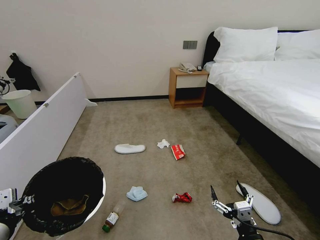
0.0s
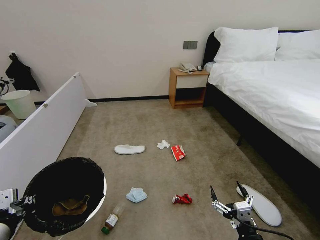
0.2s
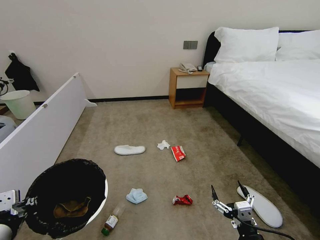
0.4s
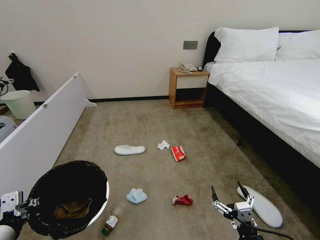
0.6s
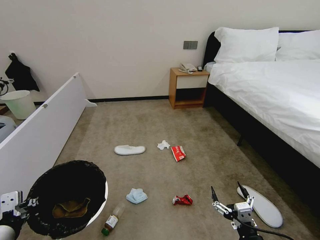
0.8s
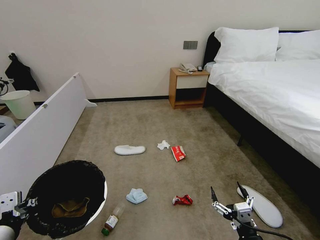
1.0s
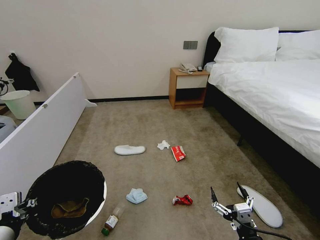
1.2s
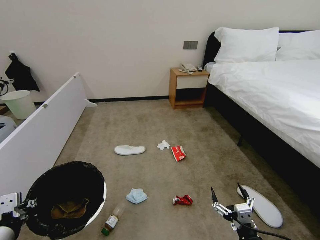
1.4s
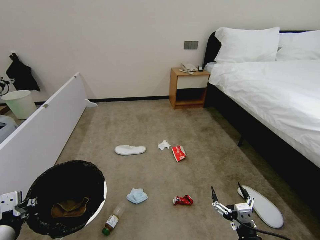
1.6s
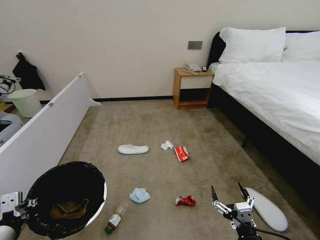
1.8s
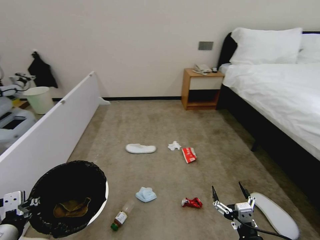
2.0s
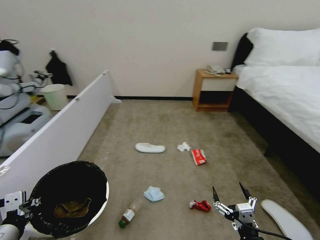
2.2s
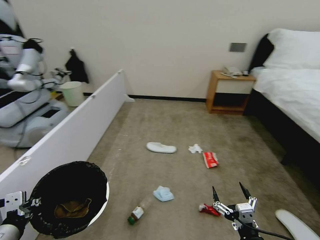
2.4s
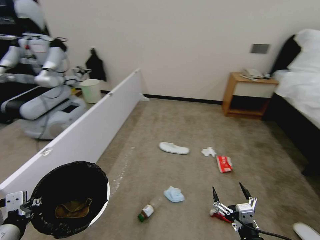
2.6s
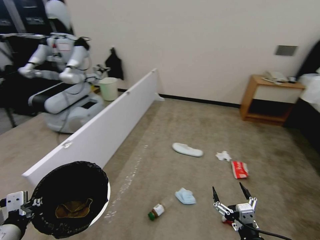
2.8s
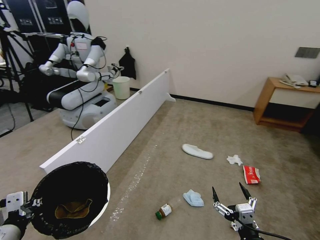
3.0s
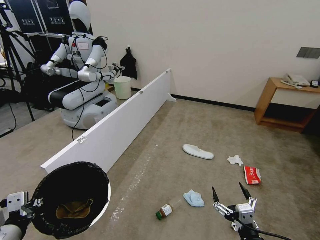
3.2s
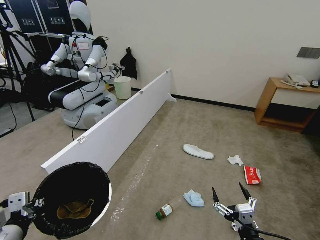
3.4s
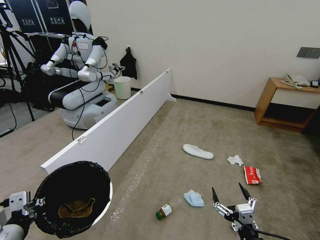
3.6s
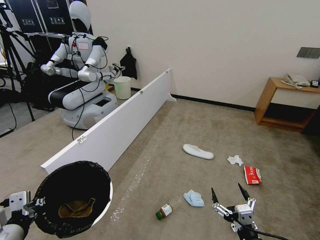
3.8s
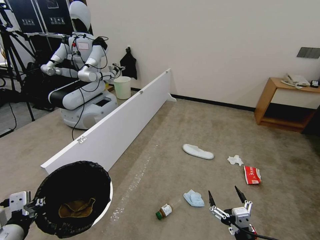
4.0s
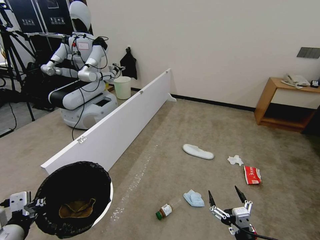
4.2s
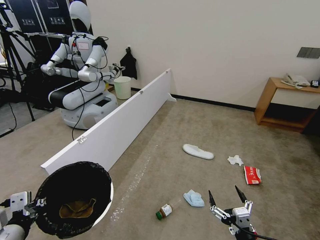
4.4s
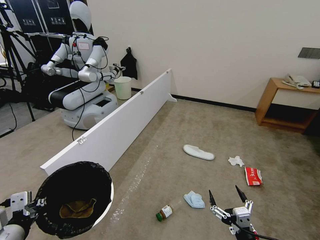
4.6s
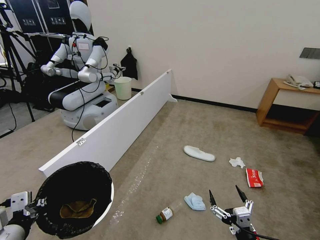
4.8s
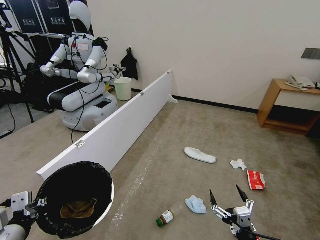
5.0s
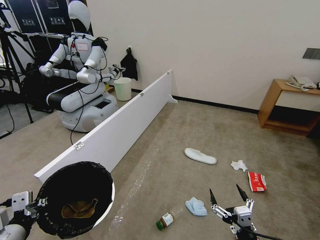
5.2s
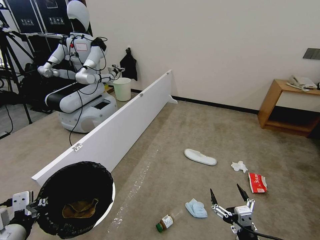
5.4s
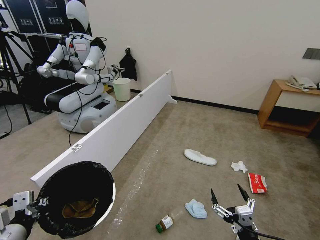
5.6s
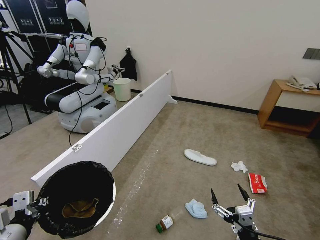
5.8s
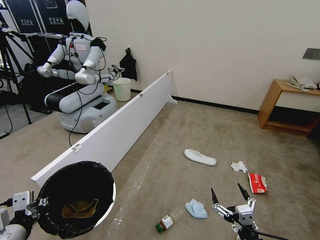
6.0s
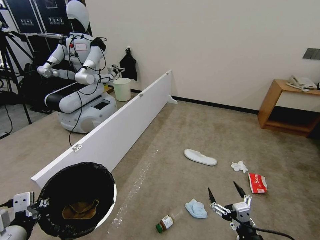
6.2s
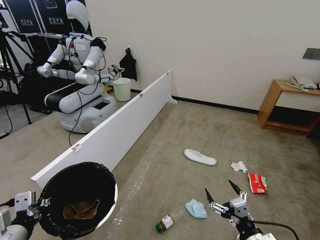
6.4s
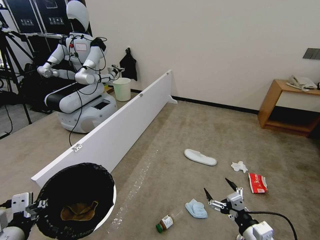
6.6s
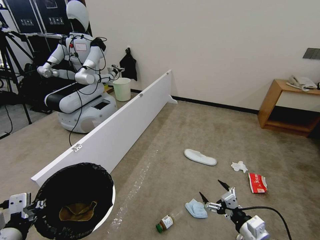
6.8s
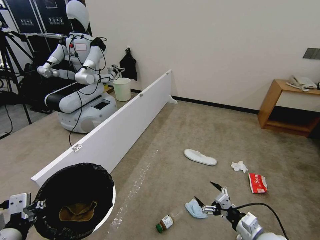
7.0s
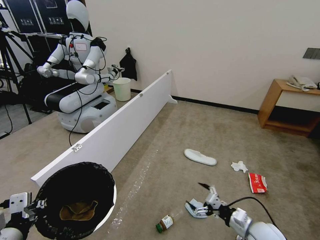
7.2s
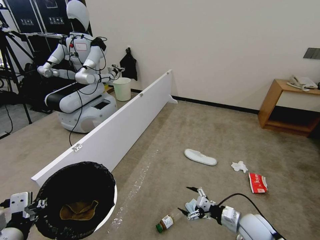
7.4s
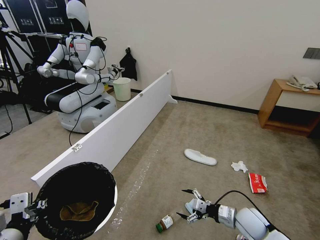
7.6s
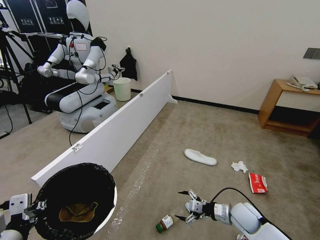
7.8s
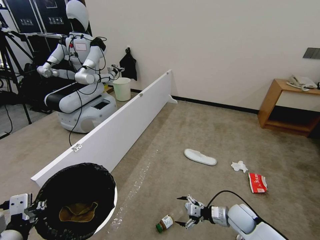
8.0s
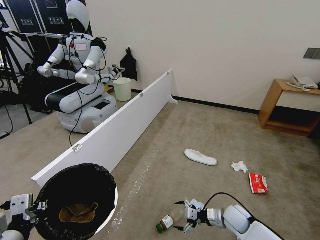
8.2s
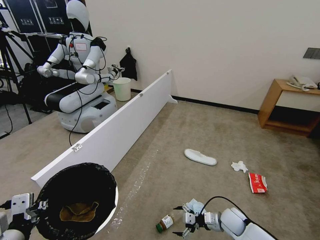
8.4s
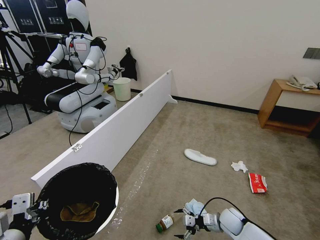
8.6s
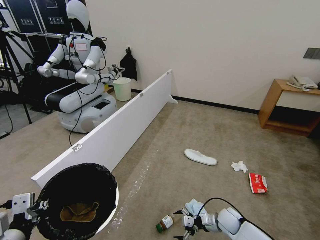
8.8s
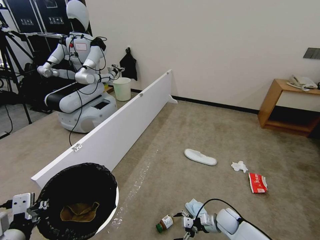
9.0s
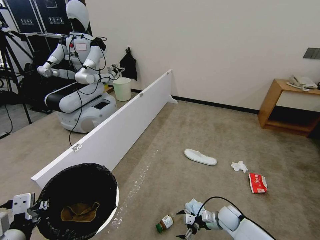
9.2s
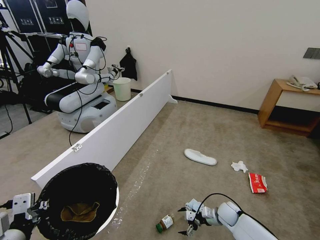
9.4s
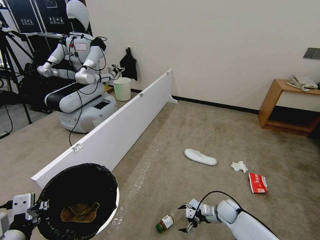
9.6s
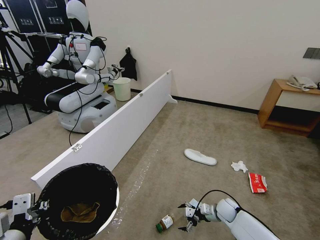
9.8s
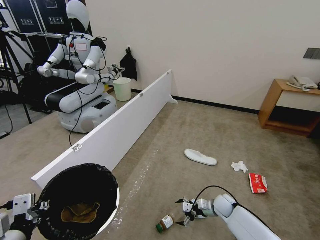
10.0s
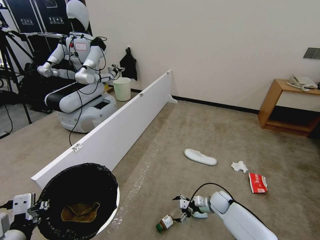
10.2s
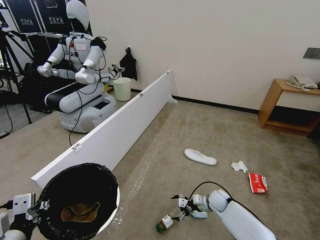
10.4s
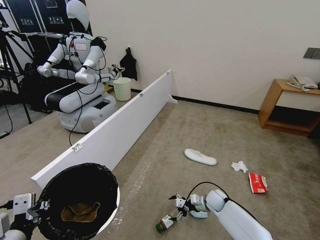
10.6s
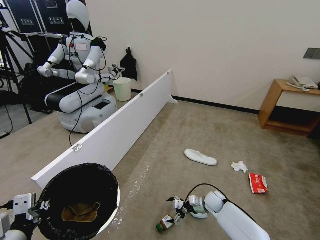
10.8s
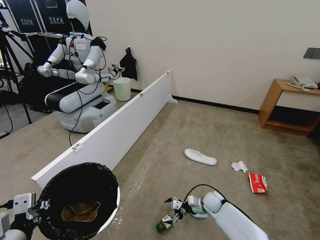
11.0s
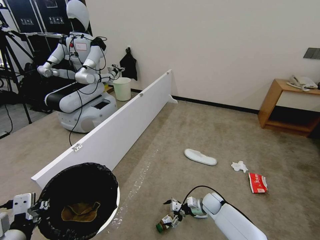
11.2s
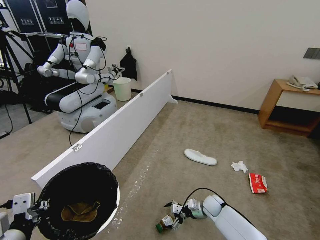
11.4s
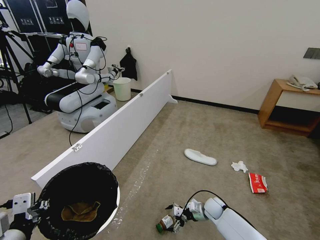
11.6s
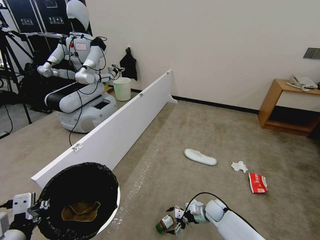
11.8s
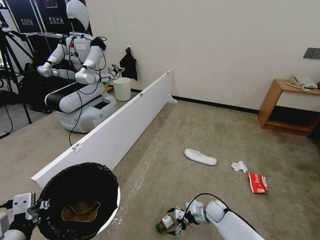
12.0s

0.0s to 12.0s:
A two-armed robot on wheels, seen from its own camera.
Task of the whole recording: Pick up the trash bin, then pick up the garbage from the floor and place it into the trash bin.
0.0s to 1.6s: There are only small adjustments of the grippers.
3.0s to 6.0s: Both grippers stay put.
6.0s to 7.6s: The right gripper shifts about 20 cm forward.
7.6s to 9.0s: The right gripper goes roughly 10 cm downward.
9.0s to 10.4s: The right gripper moves forward, approximately 10 cm.
10.4s to 12.0s: The right gripper shifts by approximately 5 cm.

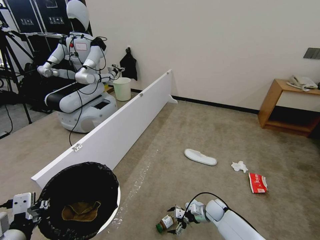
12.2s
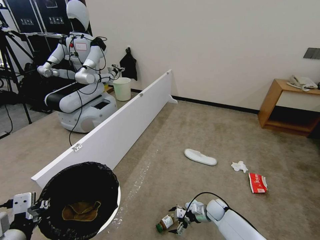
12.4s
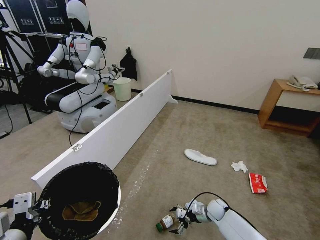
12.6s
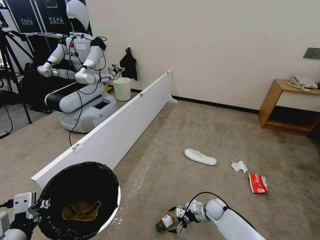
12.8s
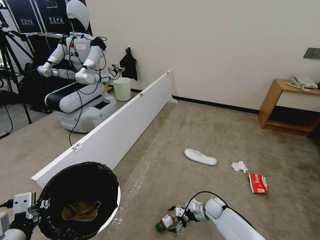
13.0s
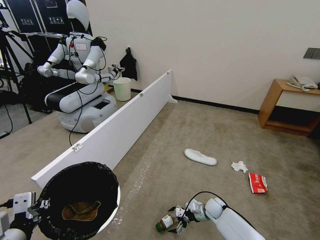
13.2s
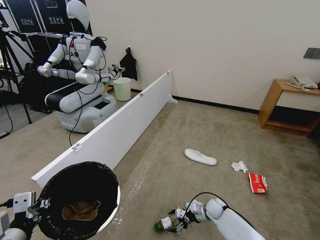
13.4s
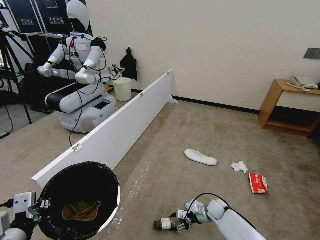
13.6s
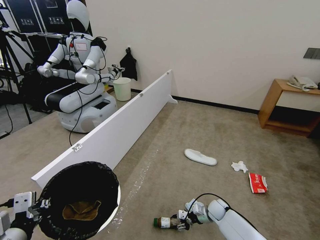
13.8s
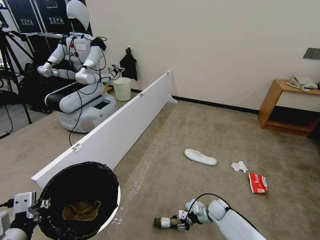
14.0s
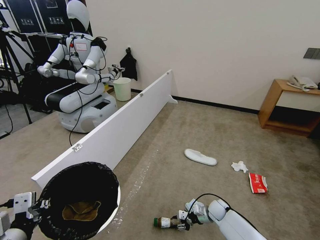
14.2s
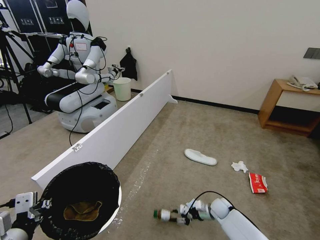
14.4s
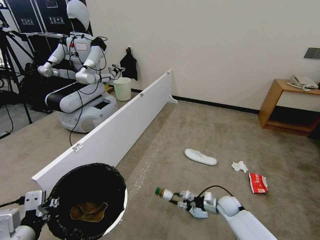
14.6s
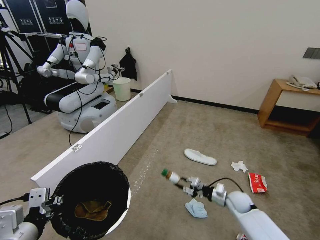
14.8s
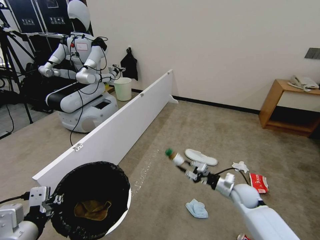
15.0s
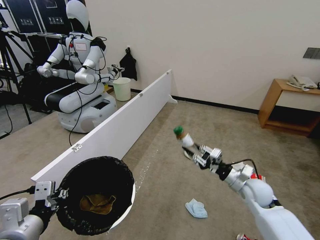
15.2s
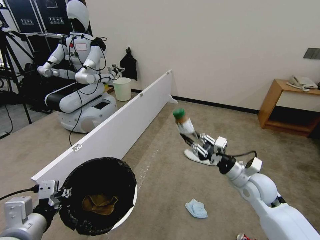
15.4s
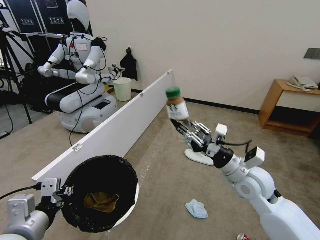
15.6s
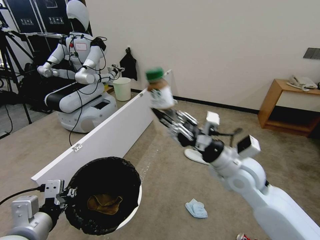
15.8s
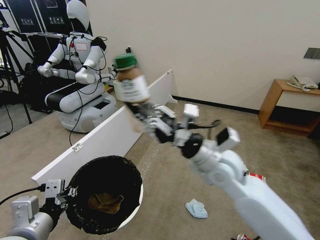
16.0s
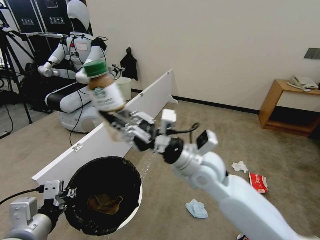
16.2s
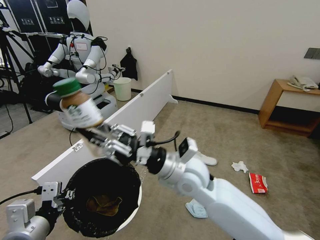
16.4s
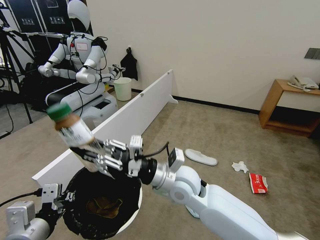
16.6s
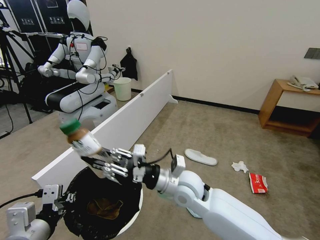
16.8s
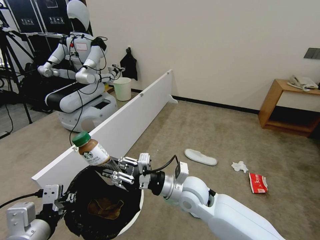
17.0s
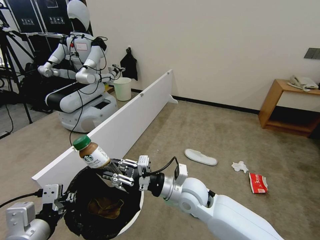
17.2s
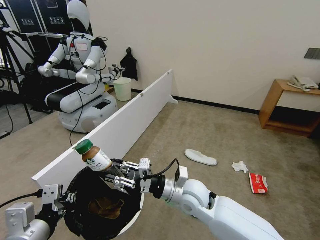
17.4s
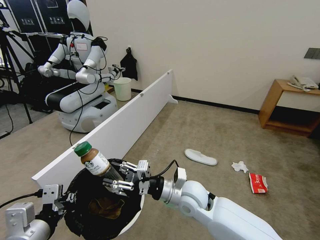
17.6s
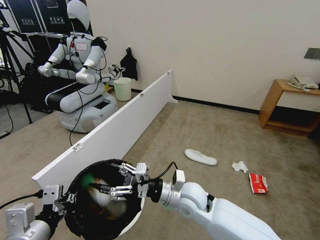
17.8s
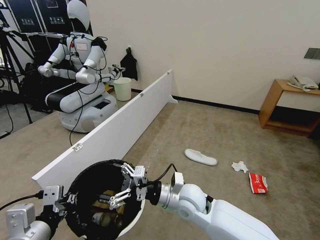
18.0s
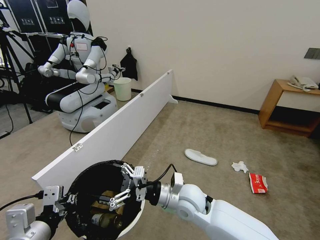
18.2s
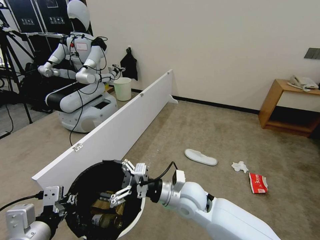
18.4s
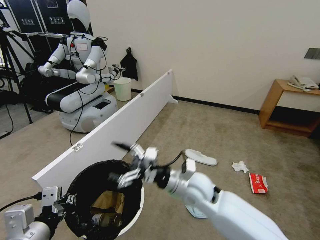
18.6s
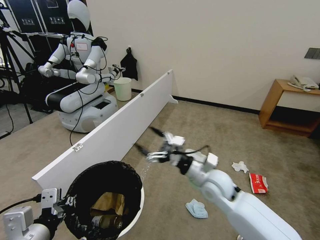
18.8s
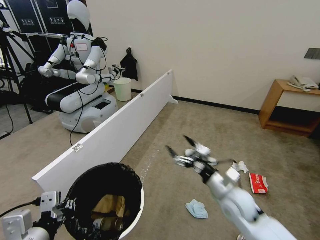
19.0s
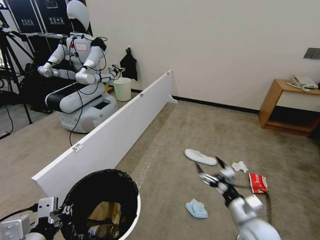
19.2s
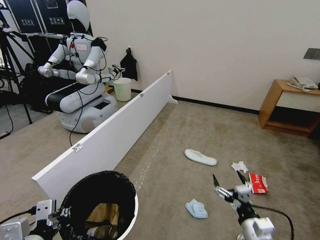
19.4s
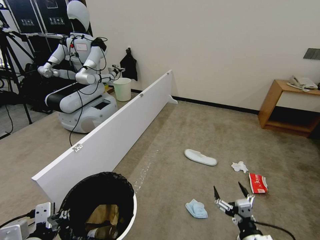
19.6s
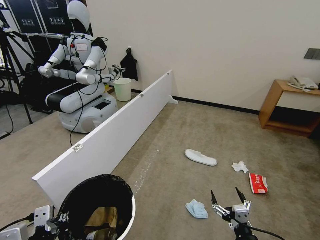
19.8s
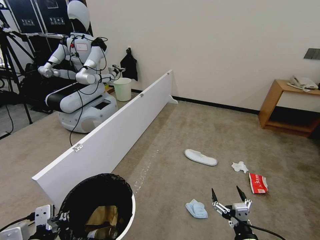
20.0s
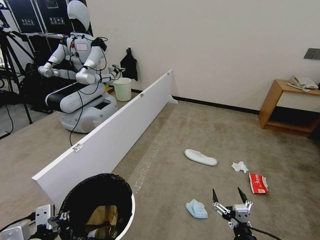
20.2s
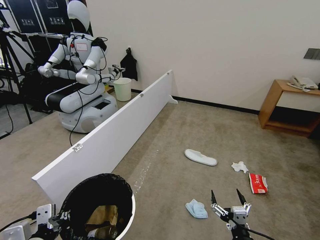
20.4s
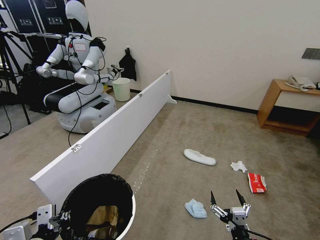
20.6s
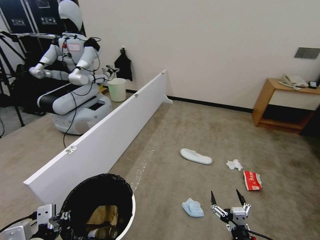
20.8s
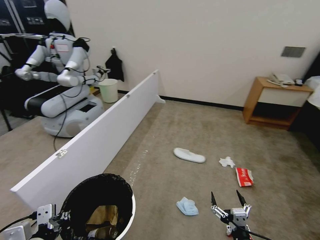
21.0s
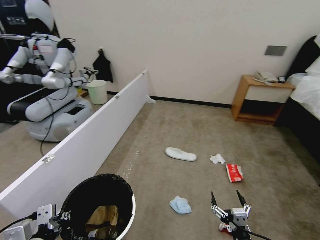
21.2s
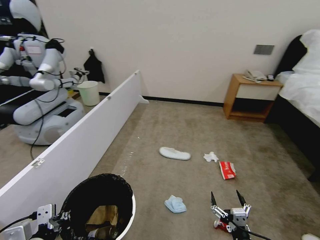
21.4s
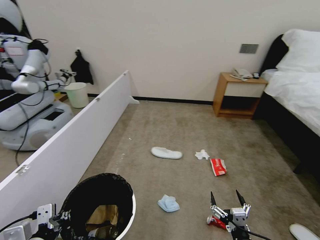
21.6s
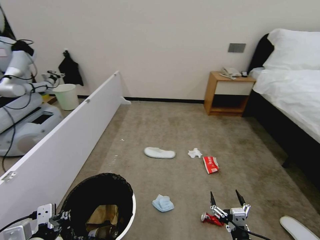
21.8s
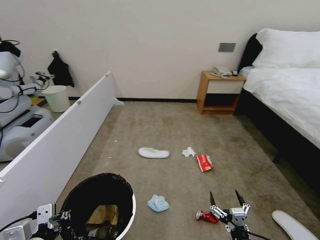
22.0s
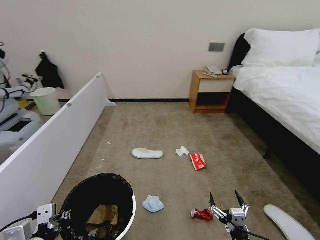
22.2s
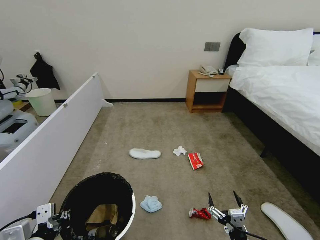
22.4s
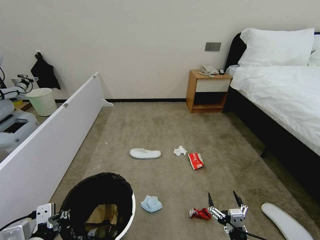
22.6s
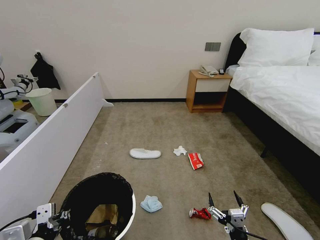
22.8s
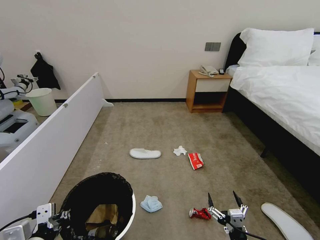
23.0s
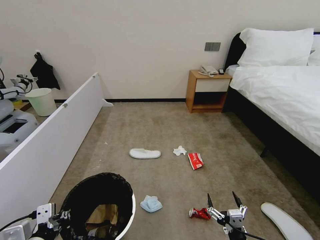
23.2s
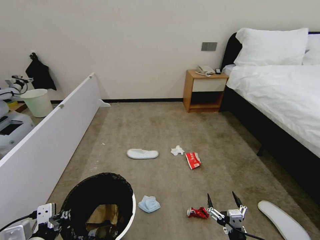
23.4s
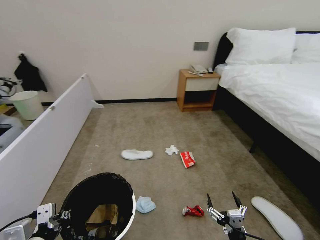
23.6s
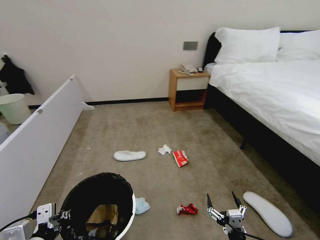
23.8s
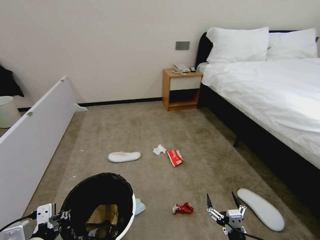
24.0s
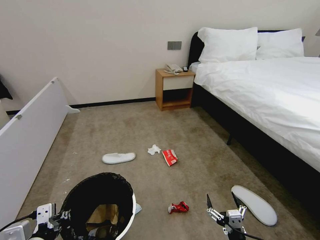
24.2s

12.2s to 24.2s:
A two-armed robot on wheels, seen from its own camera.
Task of the whole recording: Pick up the trash bin, then pick up the garbage from the floor and place it into the trash bin.
12.2s to 13.8s: The right gripper closes.
13.8s to 15.2s: The right gripper goes roughly 25 cm upward.
15.2s to 16.6s: The right gripper travels to the left and upward by some 30 cm.
16.6s to 18.2s: The right gripper shifts roughly 10 cm downward, and opens up.
18.2s to 19.8s: The right gripper heads to the right, backward and downward, covering roughly 30 cm.
